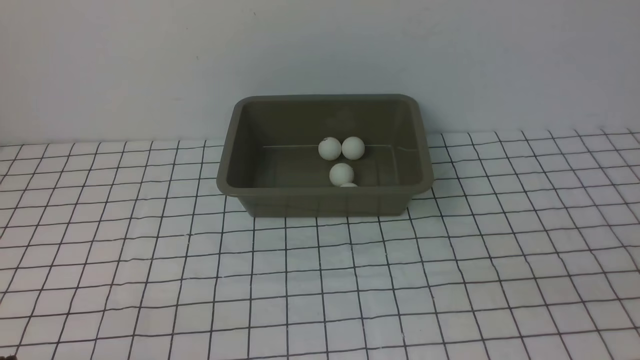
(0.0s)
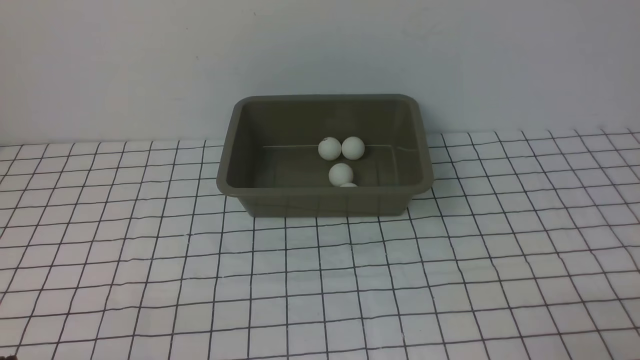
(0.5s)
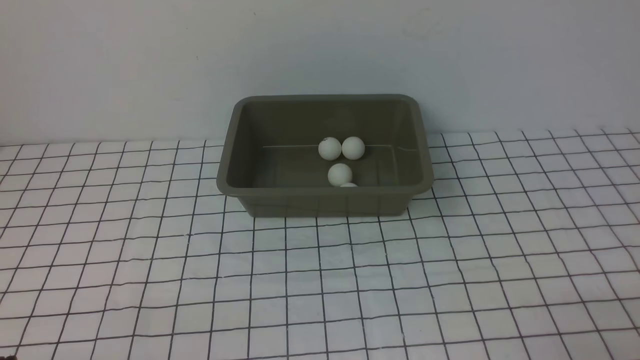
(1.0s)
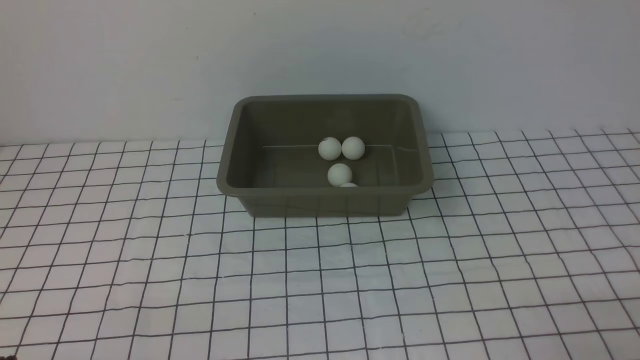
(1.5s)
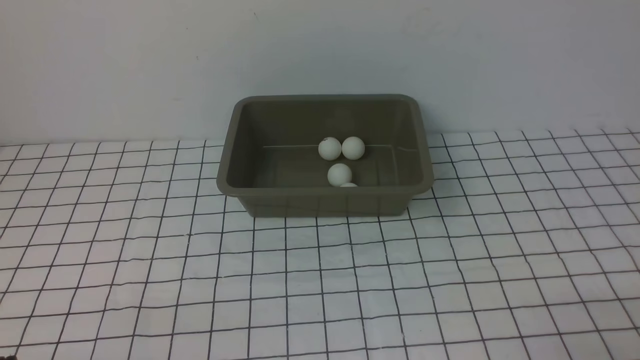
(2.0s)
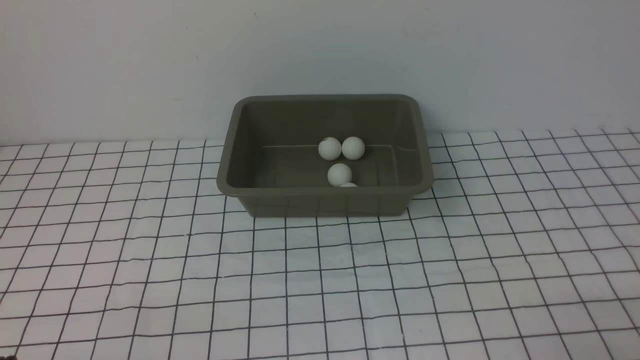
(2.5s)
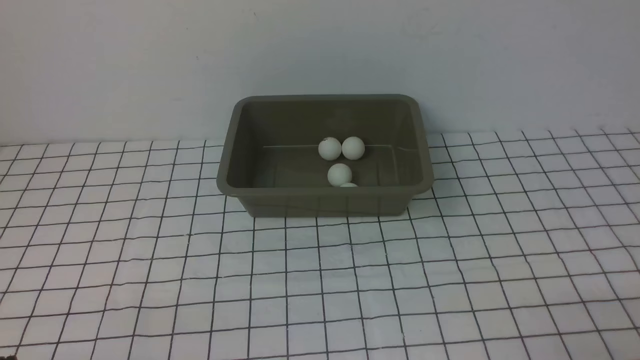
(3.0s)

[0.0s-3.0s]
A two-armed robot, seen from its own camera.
1.5s to 3.0s: The two grippers keep their place.

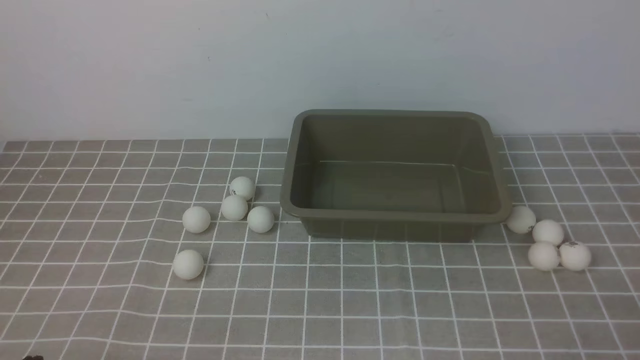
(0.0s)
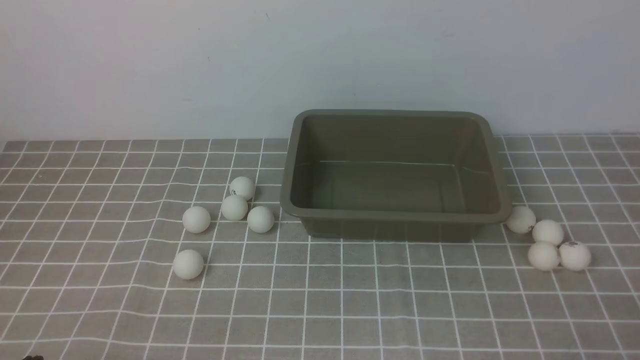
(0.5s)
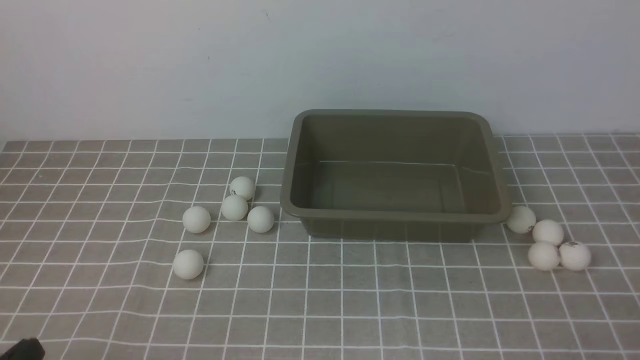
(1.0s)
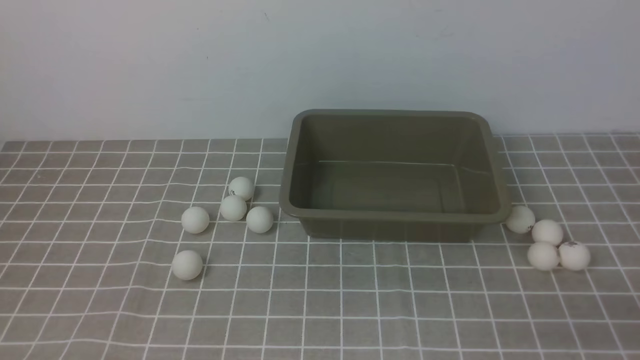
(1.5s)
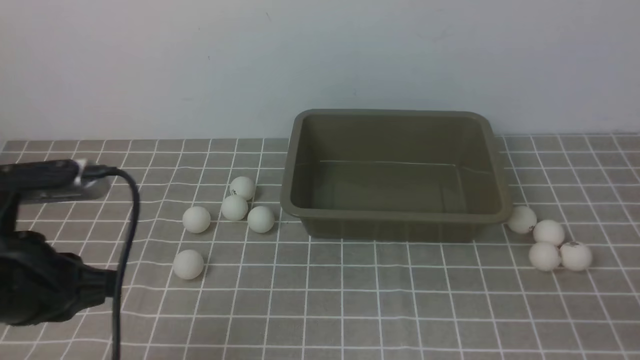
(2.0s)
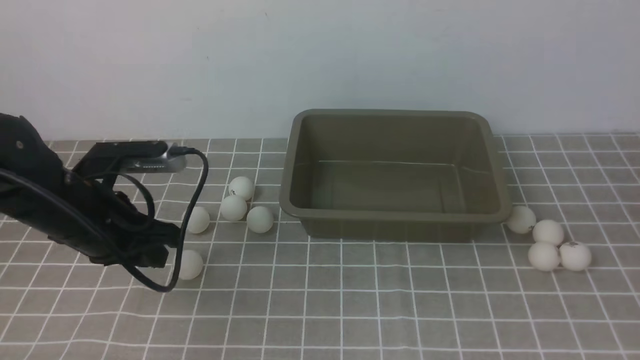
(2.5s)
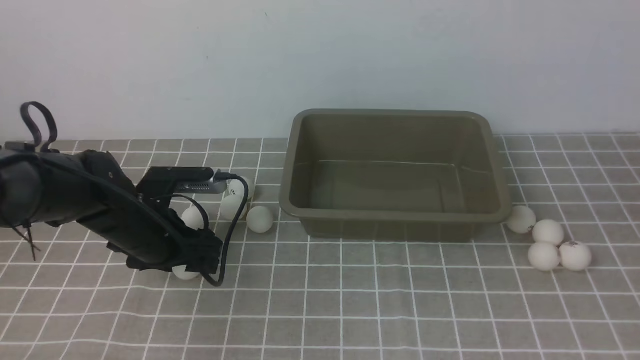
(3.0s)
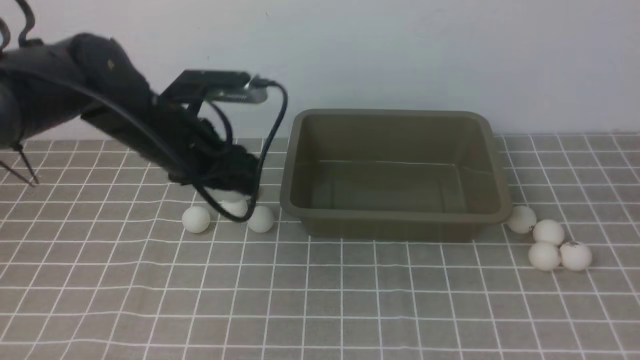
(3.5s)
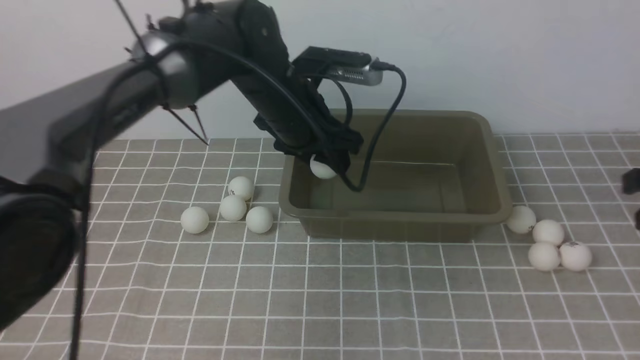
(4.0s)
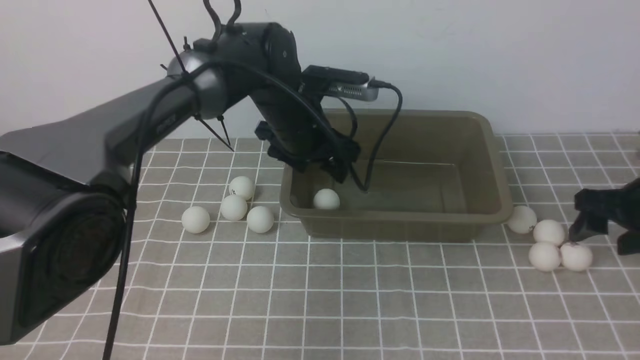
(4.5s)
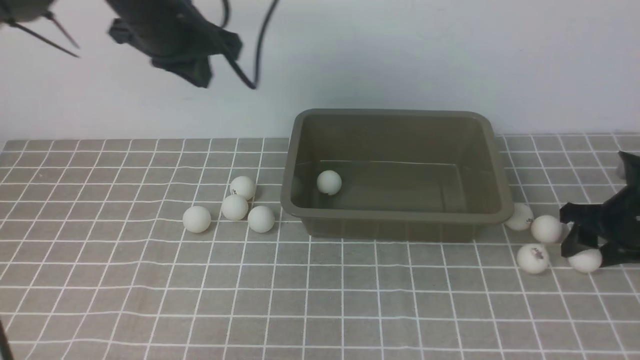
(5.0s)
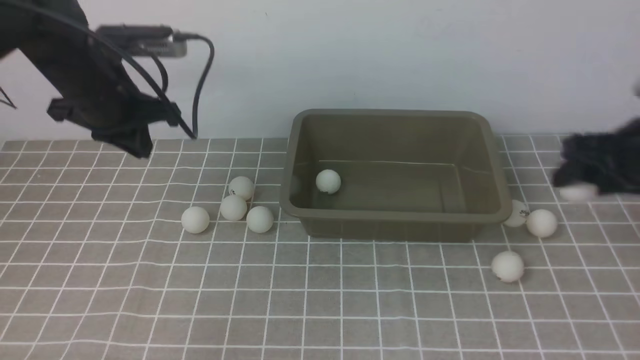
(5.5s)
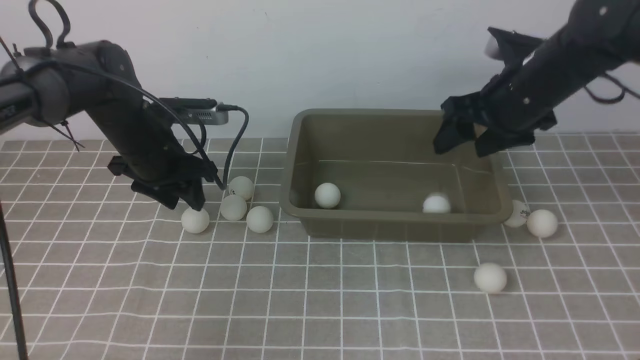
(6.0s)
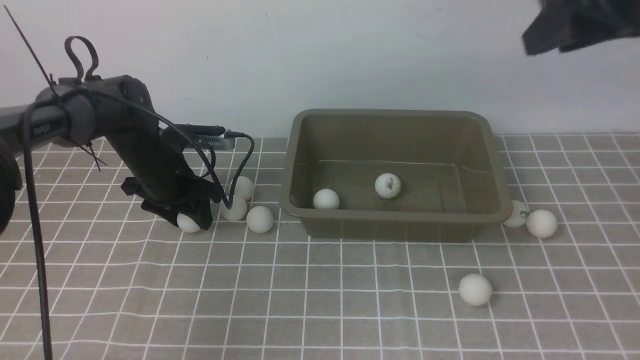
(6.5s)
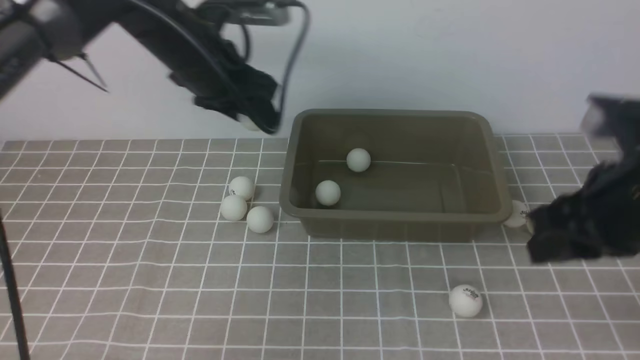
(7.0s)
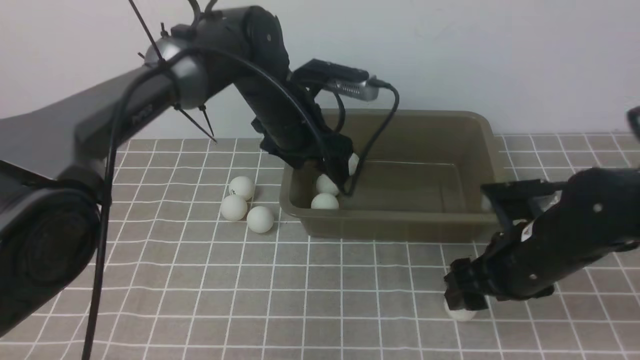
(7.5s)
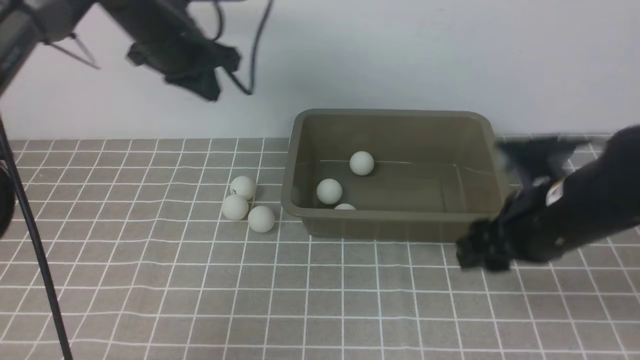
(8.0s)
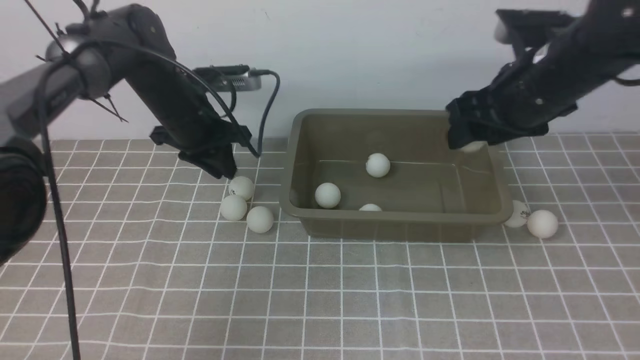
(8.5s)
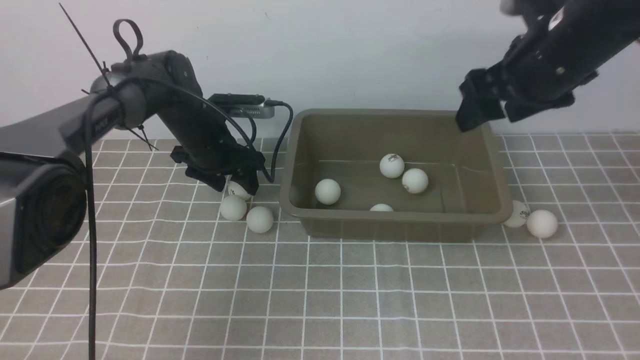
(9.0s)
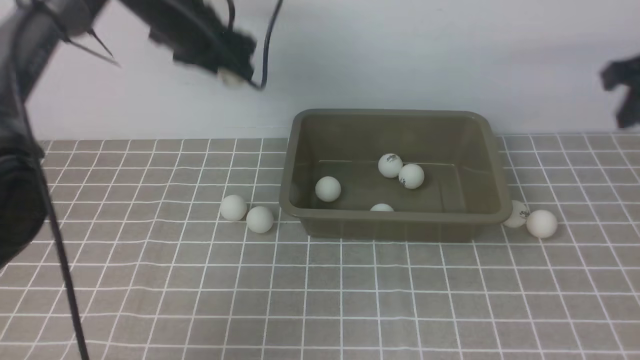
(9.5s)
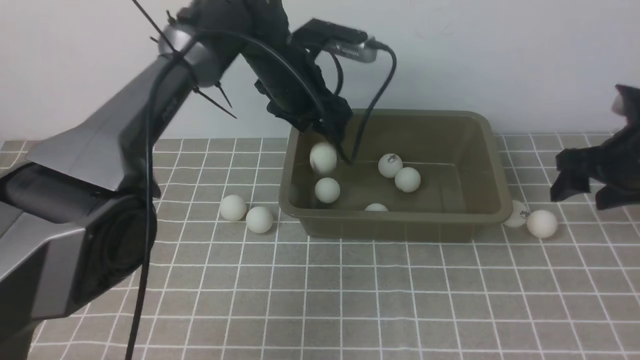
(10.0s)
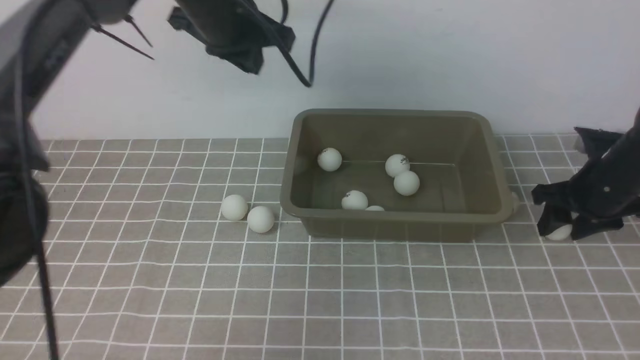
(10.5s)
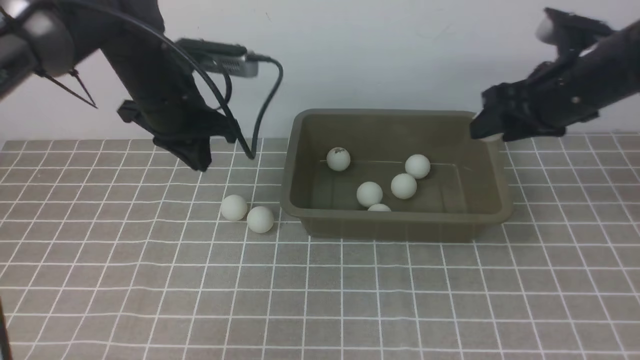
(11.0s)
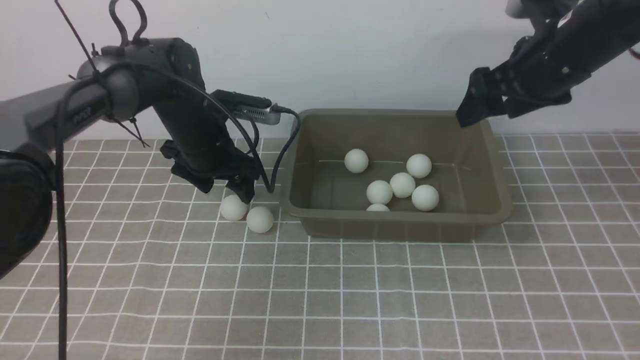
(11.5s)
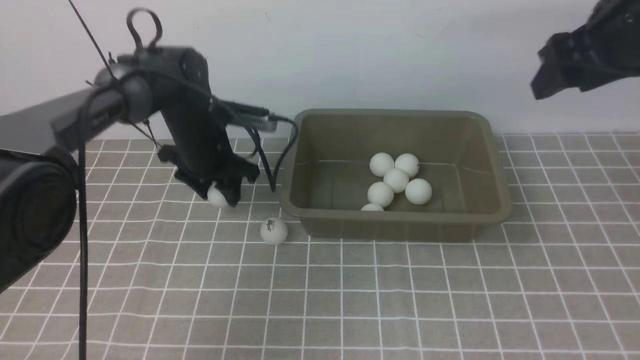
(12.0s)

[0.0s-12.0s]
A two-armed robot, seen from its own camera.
Step, 0.0s to 3.0s: use the left arm to clamp the table tennis ball closest to it.
Step, 3.5s to 4.0s: use the left arm to put the table tennis ball into the box.
Step, 4.5s to 5.5s: use the right arm to clamp the table tennis ball closest to it.
Step, 7.0s to 7.5s: use the left arm to put the table tennis ball into the box.
Step, 9.5s to 10.0s: use the left arm to put the table tennis ball into the box.
0.0s to 2.0s: The left gripper goes approximately 15 cm forward and upward.
2.0s to 4.0s: The right gripper heads forward, covering about 20 cm. Meanwhile the left gripper moves forward and to the right, roughly 30 cm, and opens its fingers.
4.0s to 6.0s: The right gripper goes some 15 cm to the left and forward, and opens; the left gripper travels to the left by about 15 cm, and closes, then reopens.
6.0s to 8.0s: The right gripper swings up and down, roughly 25 cm each way, with 2 reversals. Meanwhile the left gripper travels upward by roughly 10 cm, moves some 15 cm to the right and comes back, and closes up.
8.0s to 10.0s: The left gripper is displaced to the right by about 10 cm, reaches some 15 cm downward, then returns, and opens. The right gripper heads to the right and forward, covering approximately 15 cm.
10.0s to 12.0s: The left gripper heads to the left and downward, covering some 10 cm, and closes, then reopens; the right gripper goes some 15 cm upward.

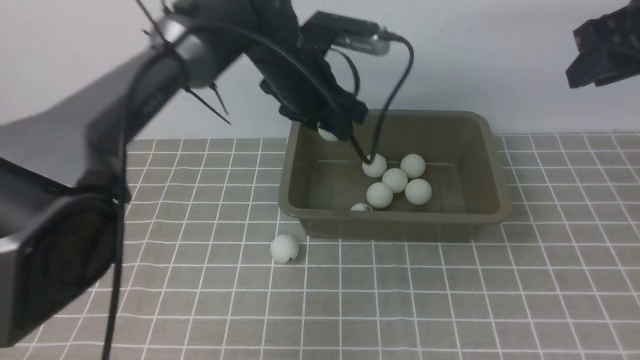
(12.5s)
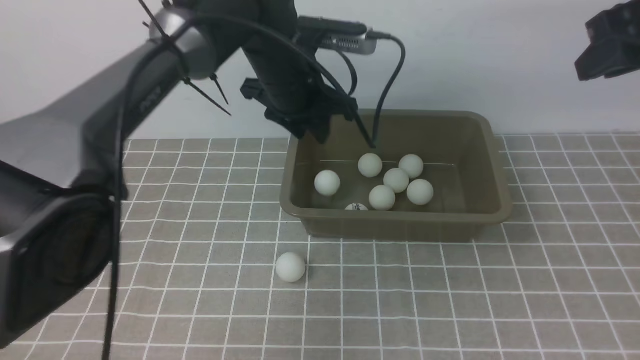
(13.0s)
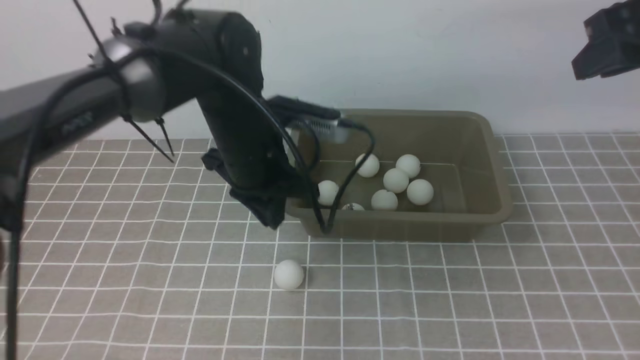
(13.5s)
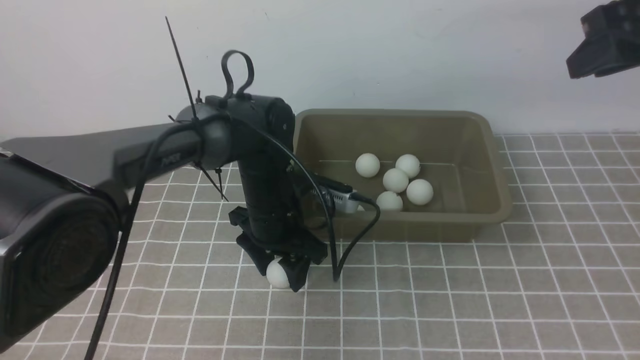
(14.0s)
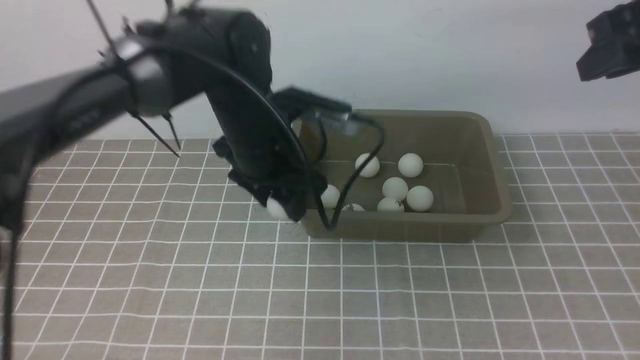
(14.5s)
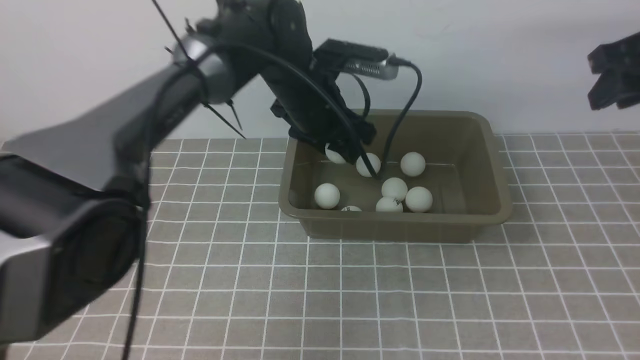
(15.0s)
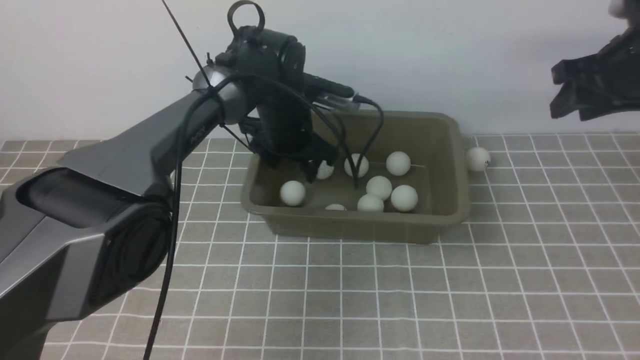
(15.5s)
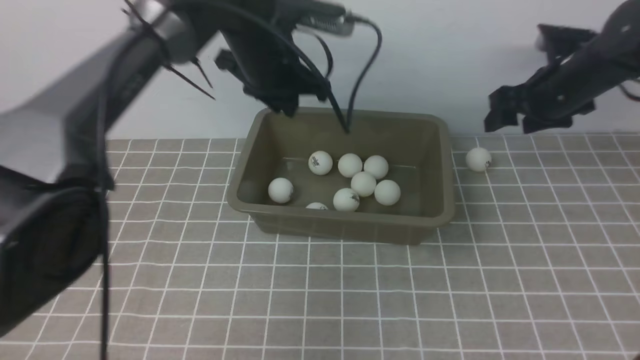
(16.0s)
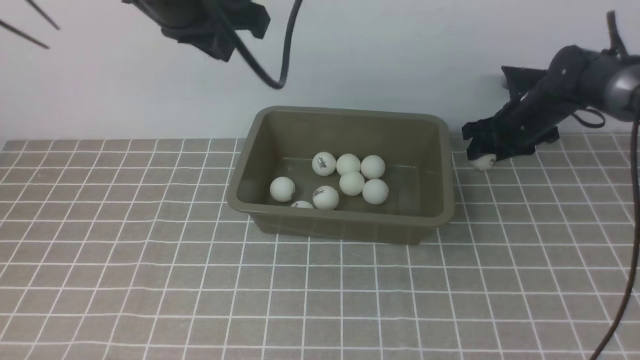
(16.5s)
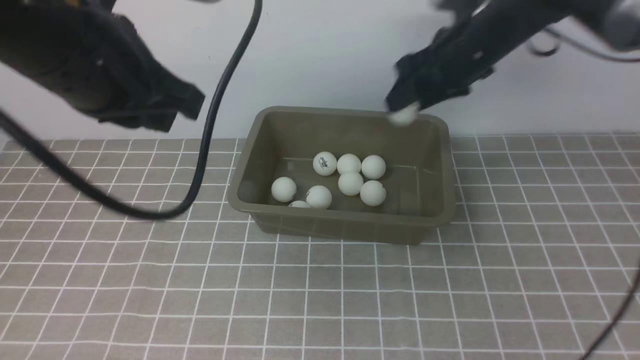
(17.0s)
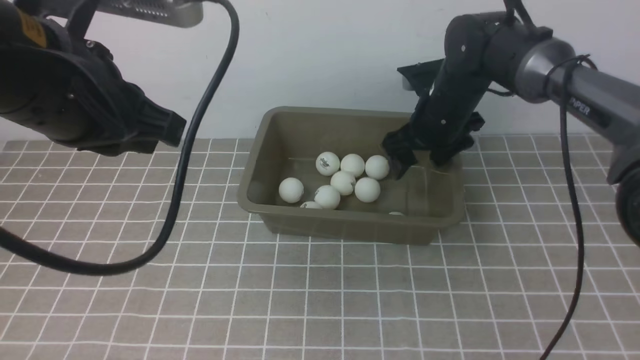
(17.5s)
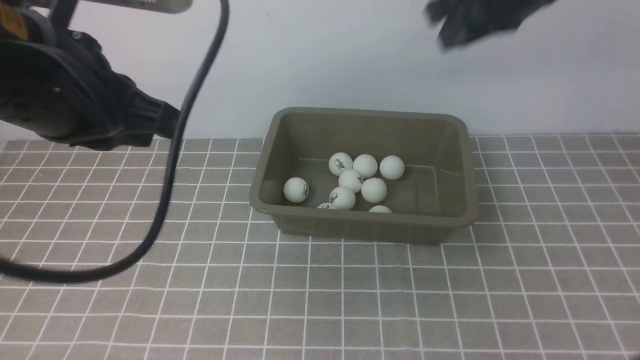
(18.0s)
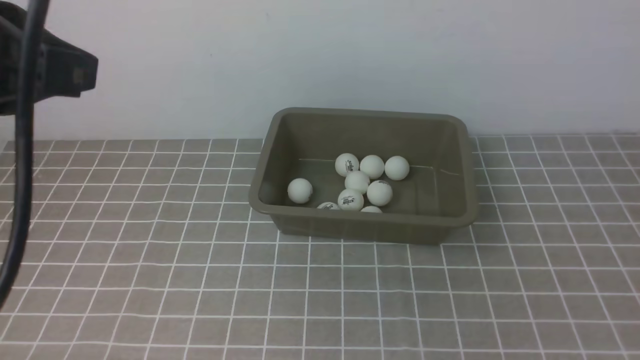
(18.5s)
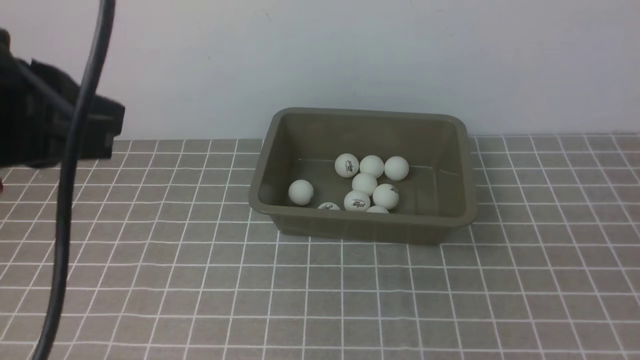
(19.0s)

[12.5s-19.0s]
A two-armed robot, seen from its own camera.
Step, 13.0s to 14.0s: use the left arm to clamp the table tennis ball closest to it.
Step, 15.0s to 15.5s: use the left arm to put the table tennis ball into the box.
Step, 16.0s to 16.5s: use the right arm to clamp the table tennis ball closest to it.
12.5s to 14.5s: The left gripper travels backward by about 5 cm, reaches some 10 cm downward, then returns, and closes, then reopens.
14.5s to 17.0s: The right gripper shifts some 20 cm forward, to the left and downward, while the left gripper heads upward, backward and to the left, covering about 20 cm, and closes up.
17.0s to 19.0s: The left gripper is displaced backward by roughly 10 cm, while the right gripper goes approximately 40 cm backward, and closes.
